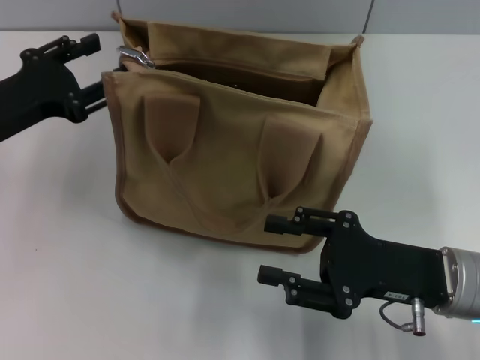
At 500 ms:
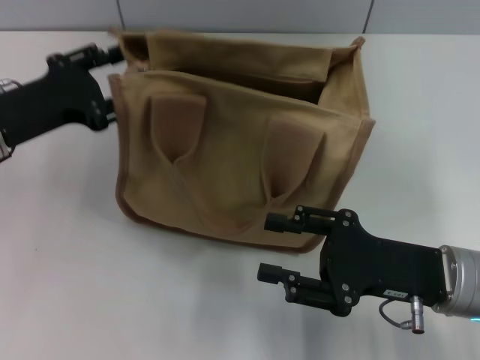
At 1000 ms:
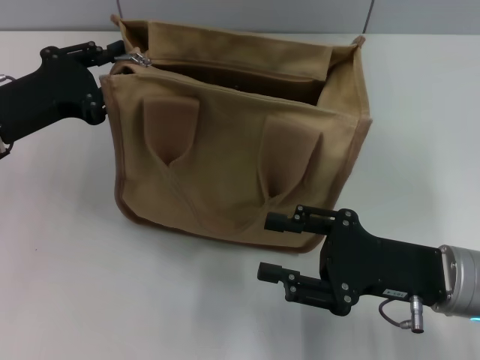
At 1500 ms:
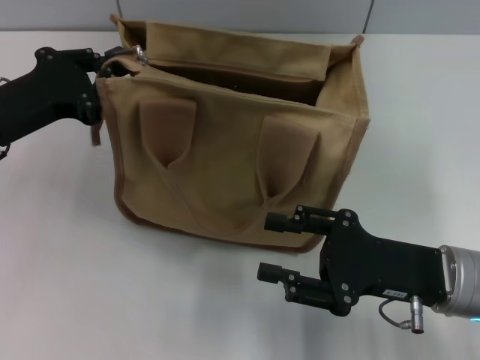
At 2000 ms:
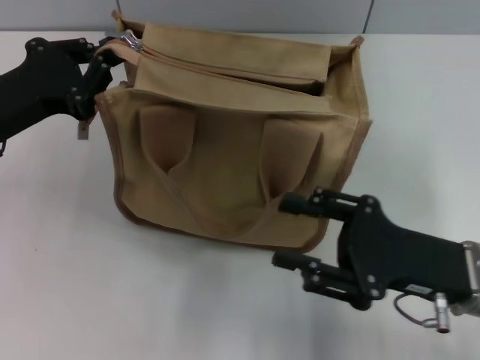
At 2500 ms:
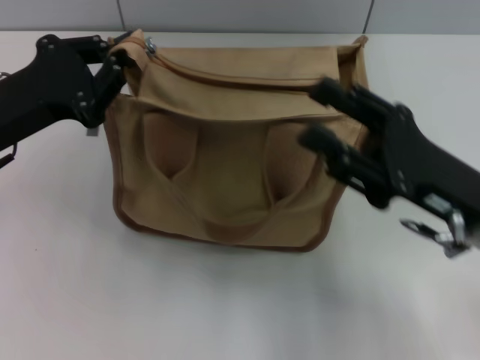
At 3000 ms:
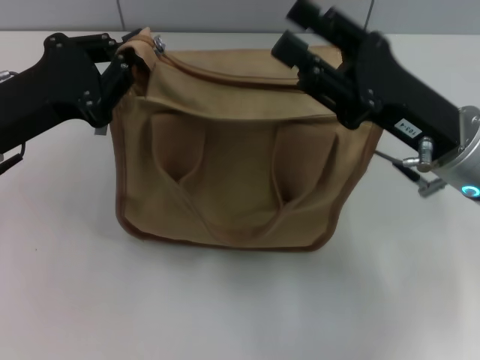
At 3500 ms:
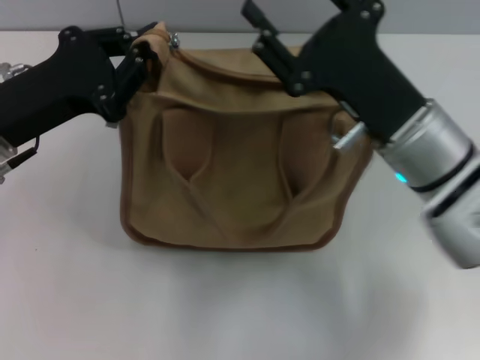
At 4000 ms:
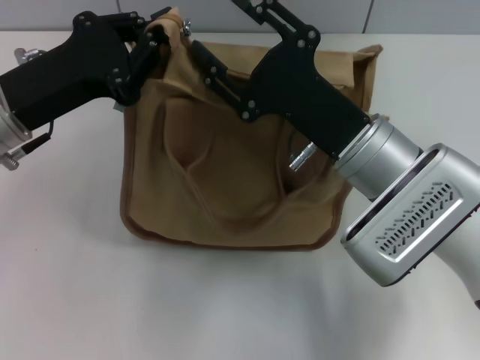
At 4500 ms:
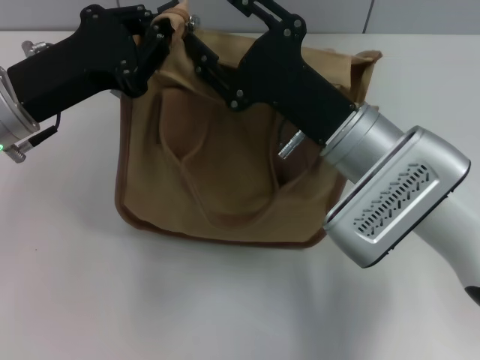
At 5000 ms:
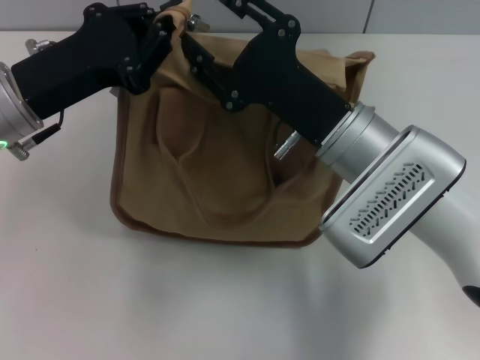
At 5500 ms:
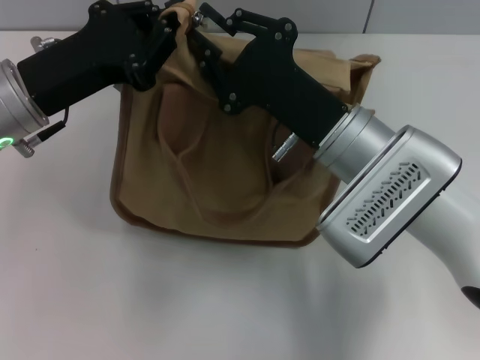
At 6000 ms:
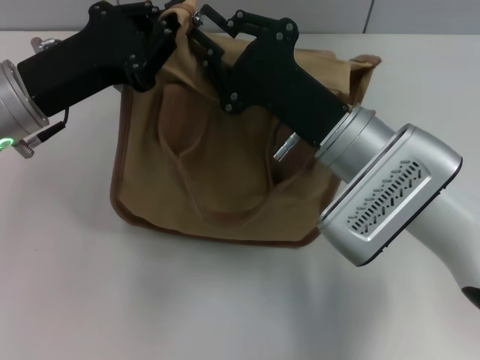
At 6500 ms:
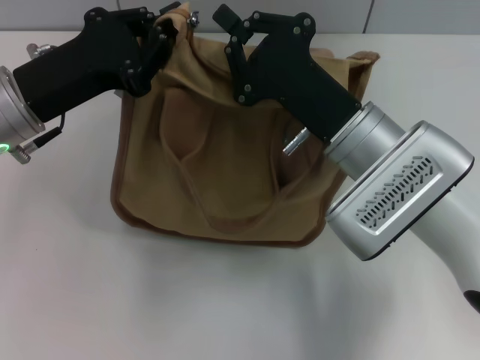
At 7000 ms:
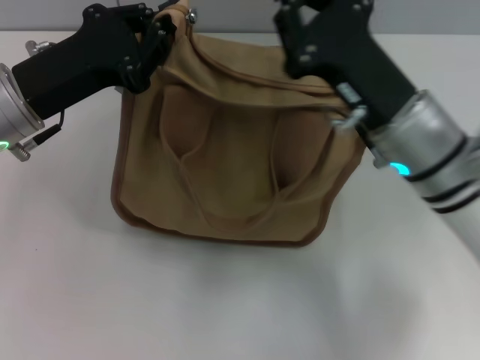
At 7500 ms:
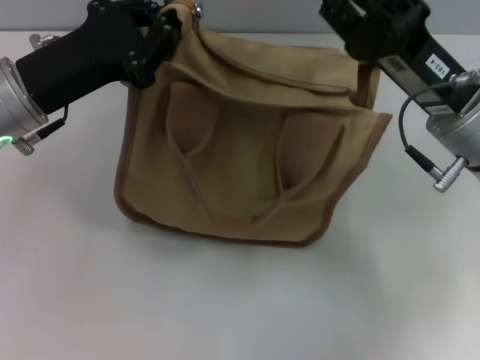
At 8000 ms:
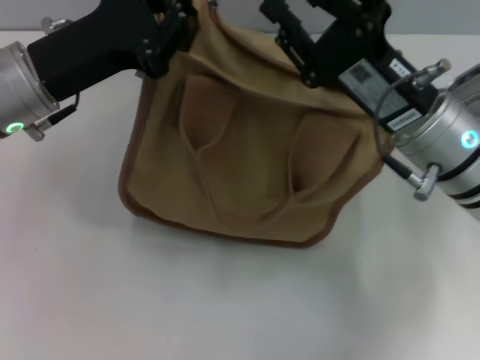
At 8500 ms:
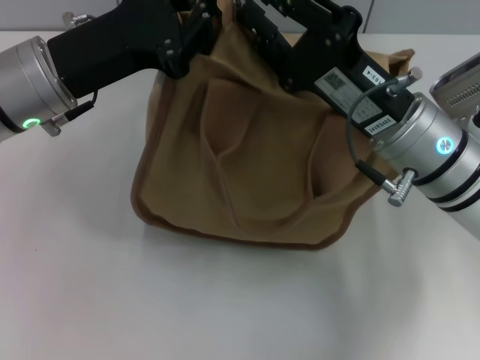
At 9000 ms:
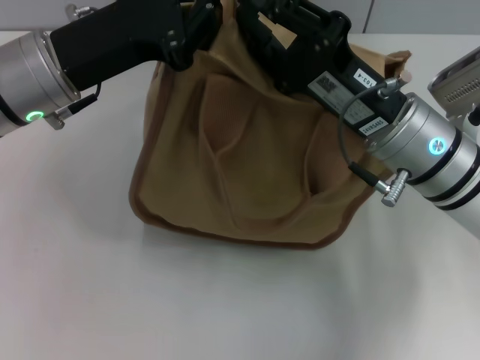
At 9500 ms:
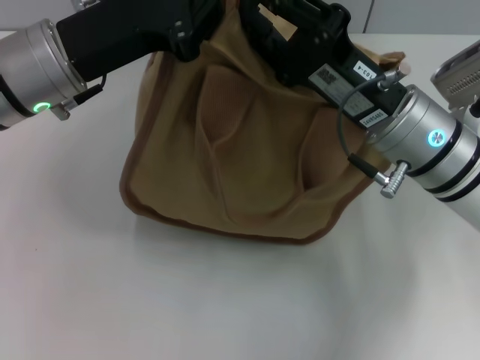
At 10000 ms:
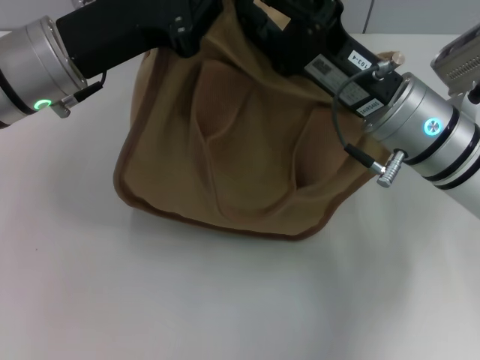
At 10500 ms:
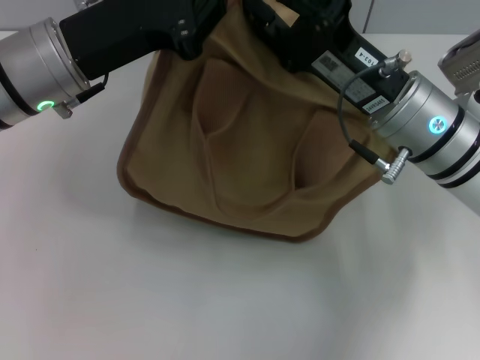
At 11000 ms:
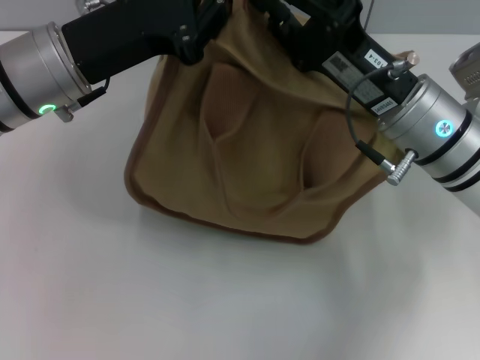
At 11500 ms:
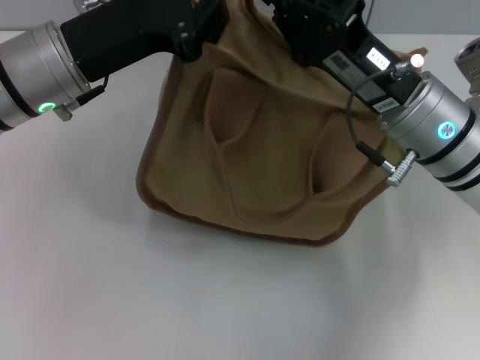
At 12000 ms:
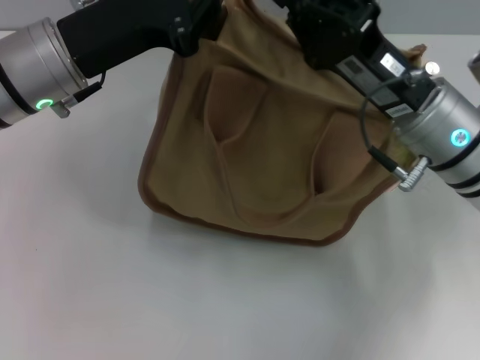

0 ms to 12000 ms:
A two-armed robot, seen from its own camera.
0 ms to 2000 ms: The left gripper closes up.
2000 ms to 4000 ms: The right gripper shifts approximately 10 cm to the left and forward.
4000 ms to 6000 ms: The right gripper closes.
6000 ms to 8000 ms: The right gripper moves to the right, about 5 cm.
10000 ms to 12000 ms: The right gripper closes.

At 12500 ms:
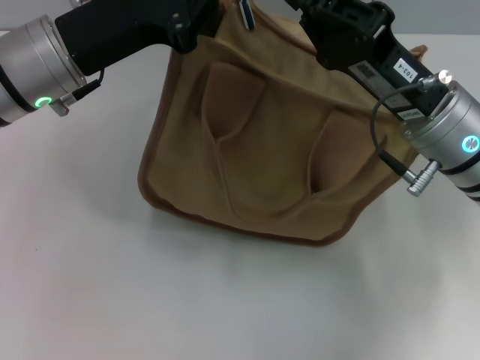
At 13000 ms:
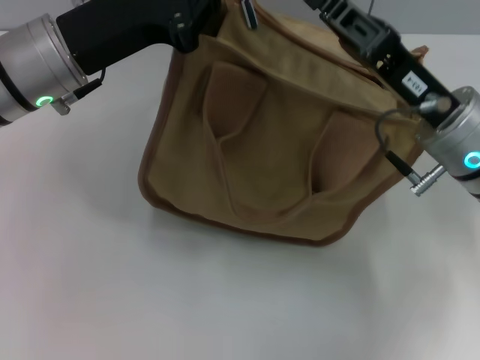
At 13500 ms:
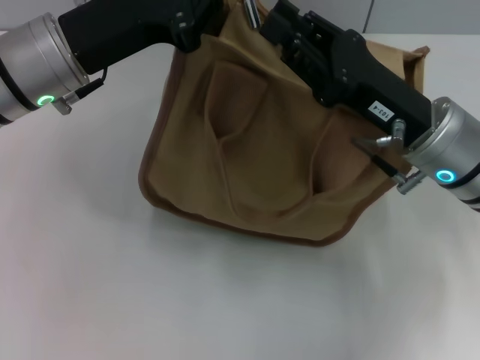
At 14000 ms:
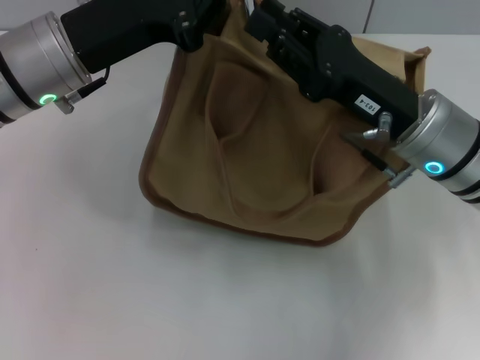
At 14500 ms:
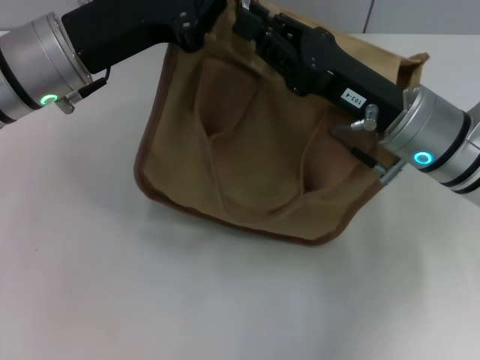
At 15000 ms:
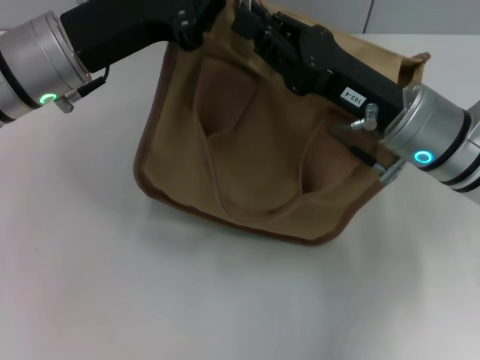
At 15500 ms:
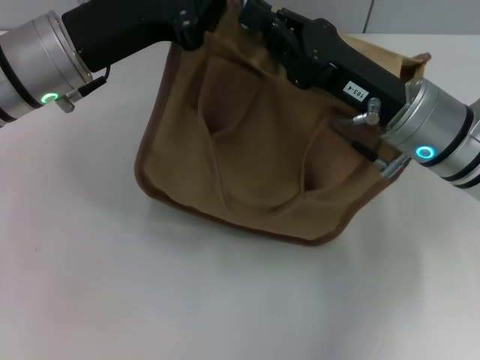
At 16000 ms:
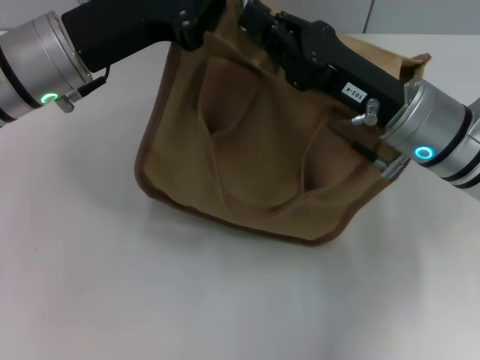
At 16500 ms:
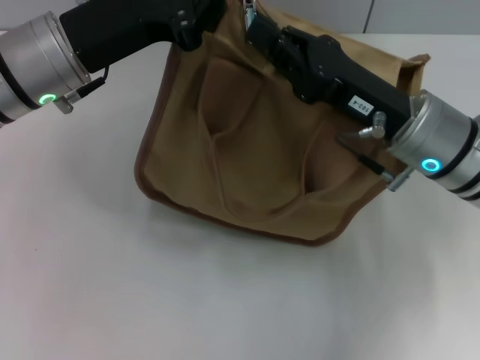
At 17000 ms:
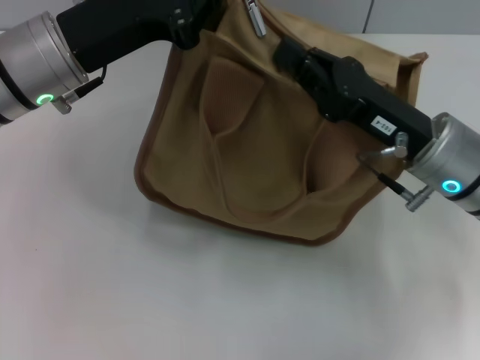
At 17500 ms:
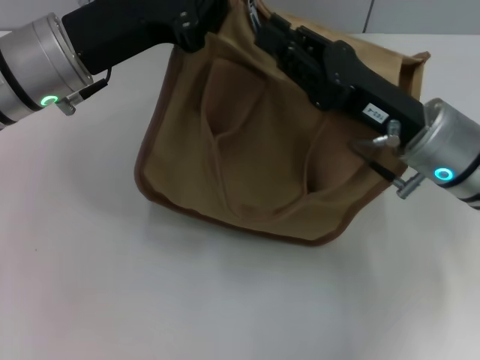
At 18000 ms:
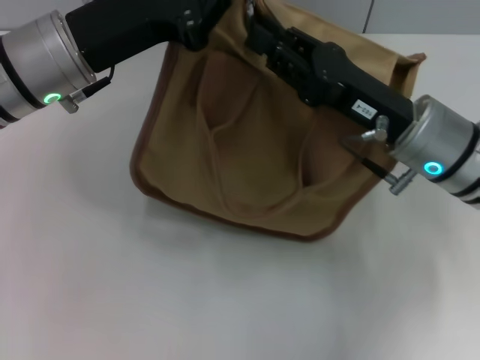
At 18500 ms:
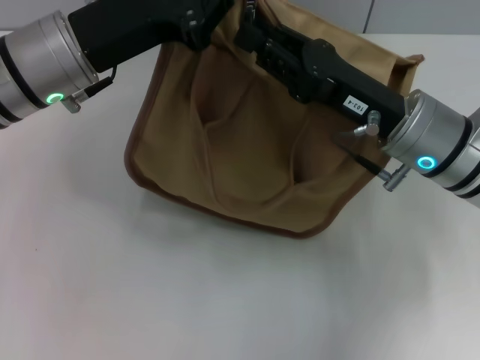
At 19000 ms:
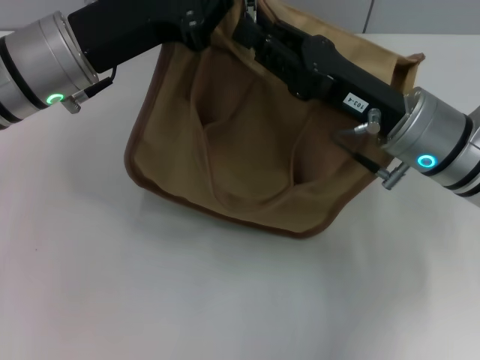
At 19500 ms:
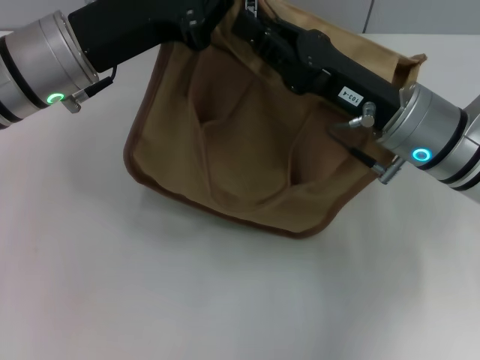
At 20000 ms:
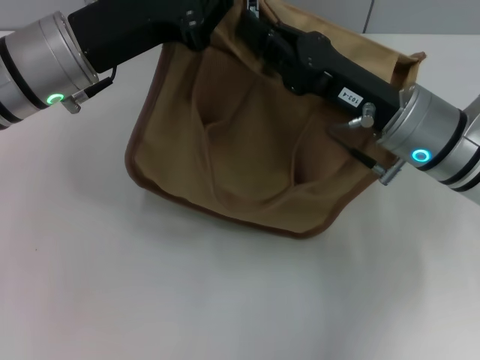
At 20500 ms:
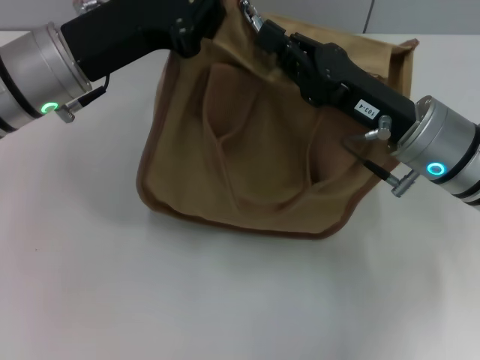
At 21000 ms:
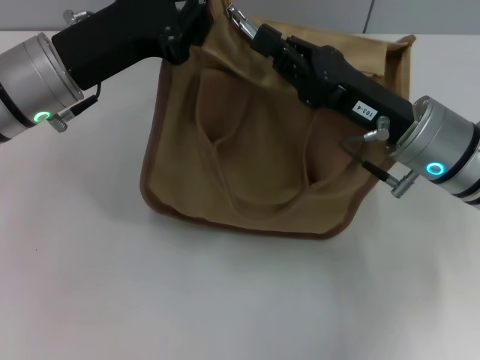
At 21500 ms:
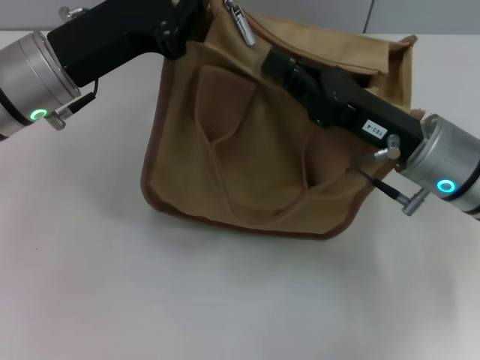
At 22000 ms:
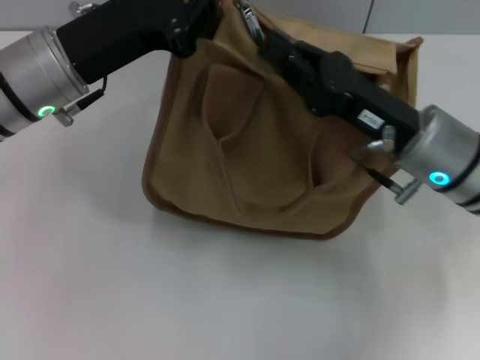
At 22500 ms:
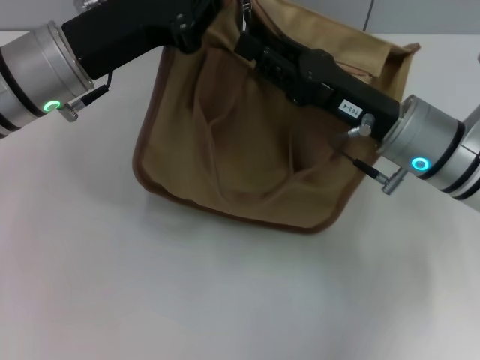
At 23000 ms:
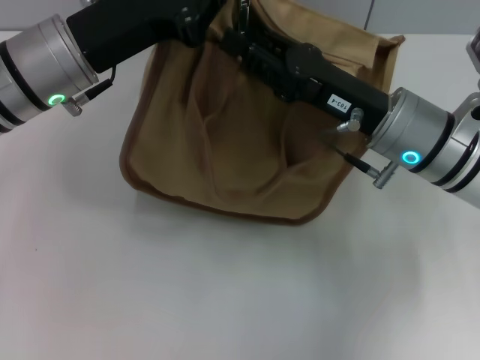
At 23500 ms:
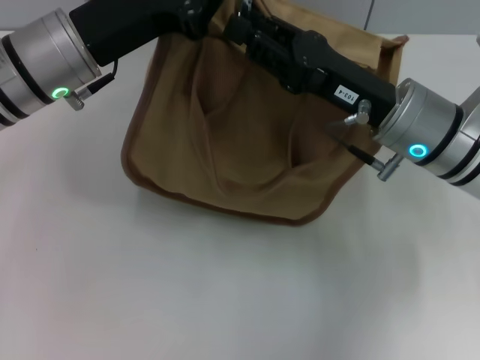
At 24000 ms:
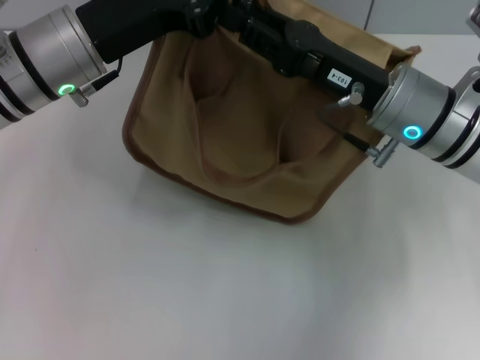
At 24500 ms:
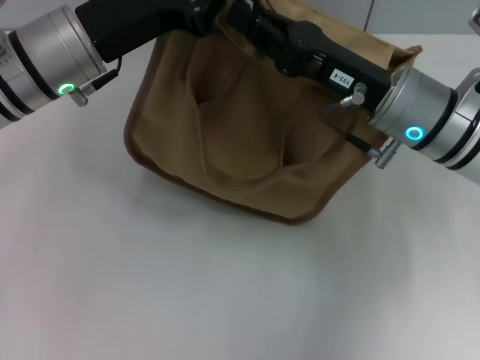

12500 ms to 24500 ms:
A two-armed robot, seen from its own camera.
12500 ms to 14500 ms: The right gripper opens its fingers.
14500 ms to 16500 ms: The right gripper closes up.
16500 ms to 18500 ms: The right gripper opens up.
18500 ms to 20500 ms: The right gripper closes up.
20500 ms to 22500 ms: The right gripper opens up.
22500 ms to 24500 ms: There are only small adjustments of the grippers.

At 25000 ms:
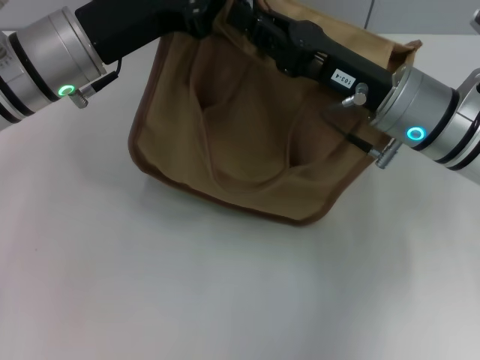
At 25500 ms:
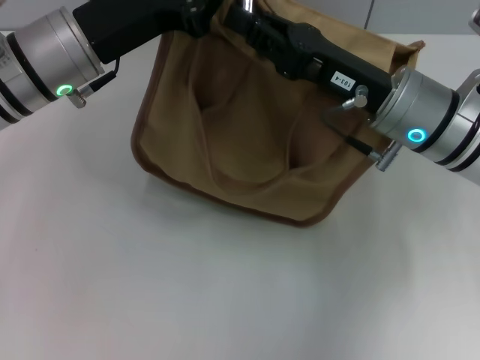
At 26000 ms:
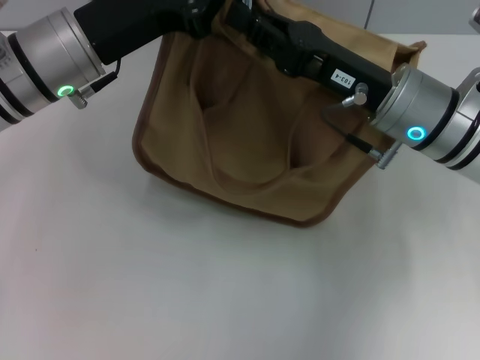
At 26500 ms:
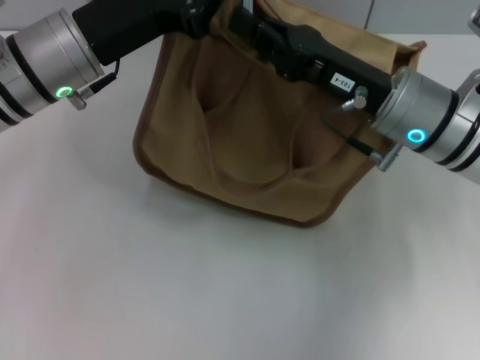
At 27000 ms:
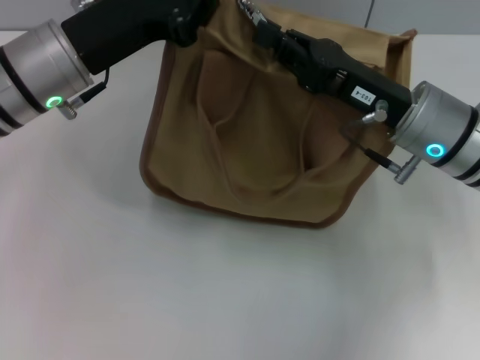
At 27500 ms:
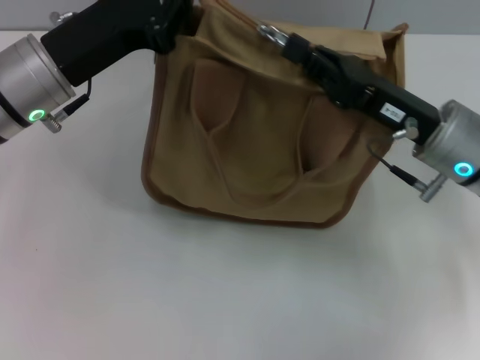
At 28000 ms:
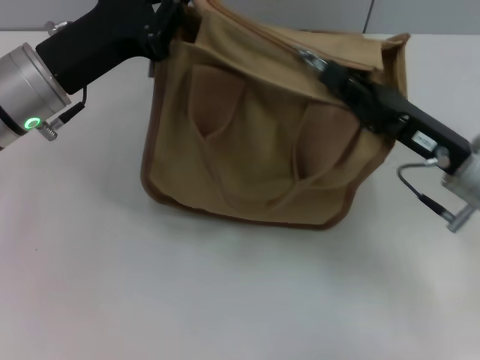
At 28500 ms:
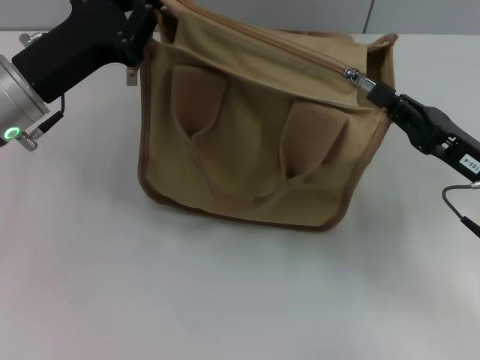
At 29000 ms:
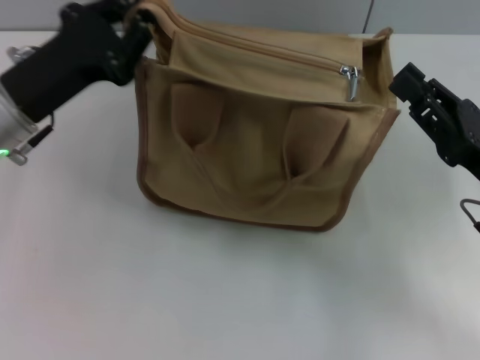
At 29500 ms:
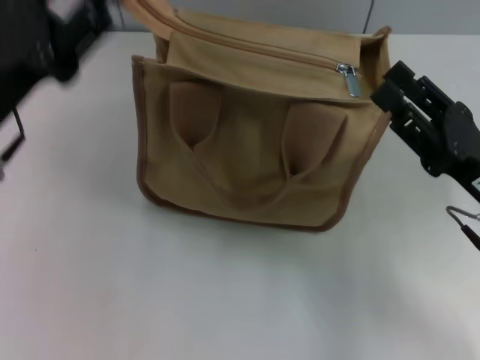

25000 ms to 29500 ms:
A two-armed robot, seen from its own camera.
Step, 25000 ms to 28500 ms: Pull up the zipper with your right hand.
25000 ms to 27000 ms: The grippers stay close to where they were, moving slightly.
27000 ms to 29500 ms: The left gripper is displaced backward and to the left by about 10 cm, and opens its fingers. The right gripper heads backward and to the right, covering roughly 10 cm, and opens up.
